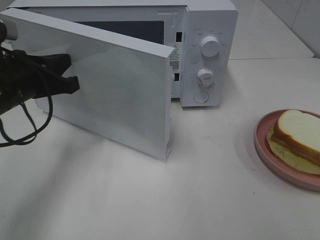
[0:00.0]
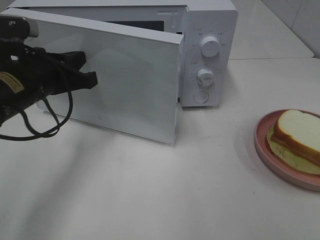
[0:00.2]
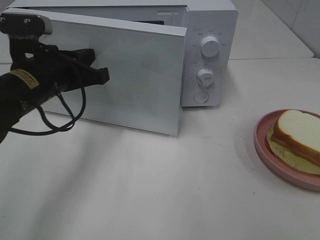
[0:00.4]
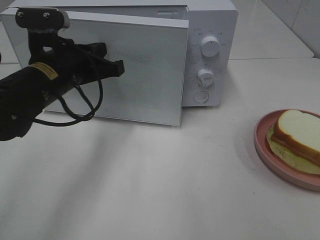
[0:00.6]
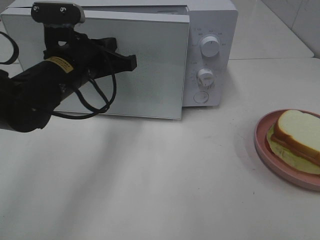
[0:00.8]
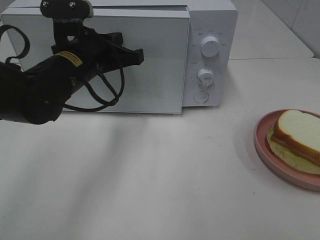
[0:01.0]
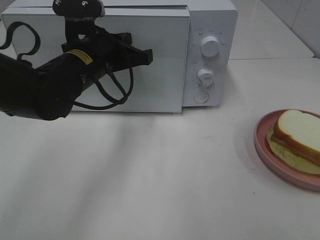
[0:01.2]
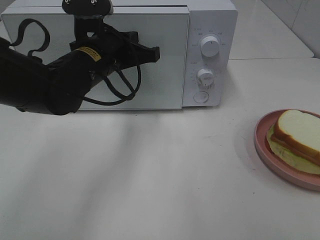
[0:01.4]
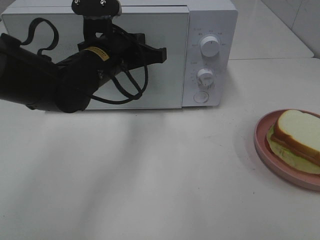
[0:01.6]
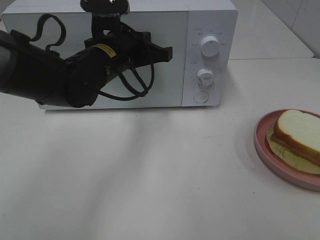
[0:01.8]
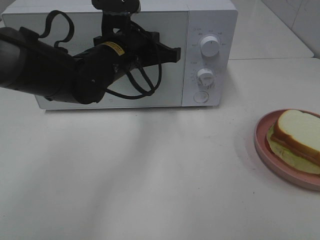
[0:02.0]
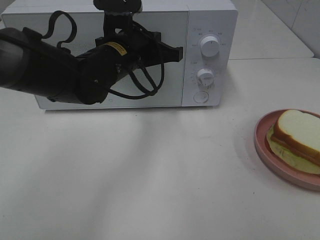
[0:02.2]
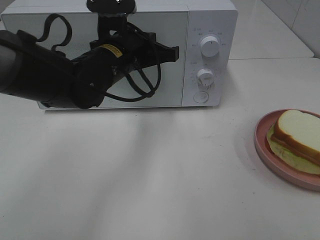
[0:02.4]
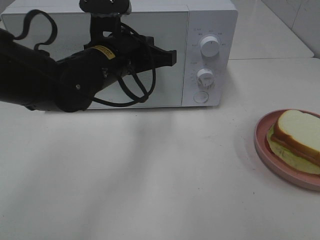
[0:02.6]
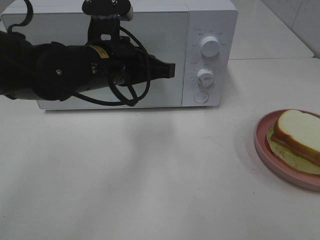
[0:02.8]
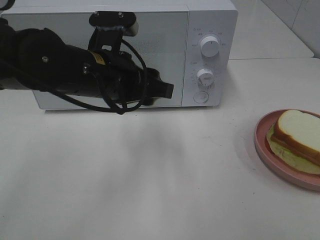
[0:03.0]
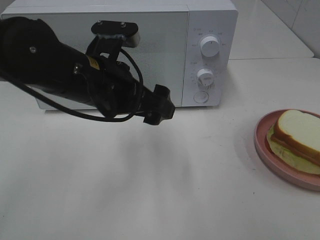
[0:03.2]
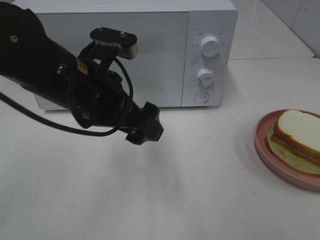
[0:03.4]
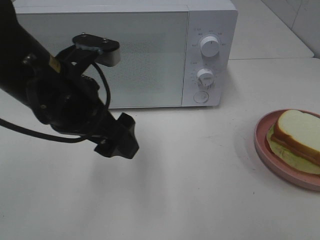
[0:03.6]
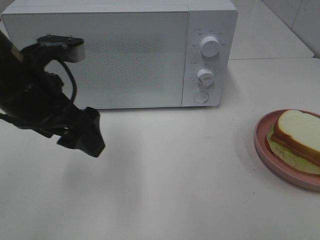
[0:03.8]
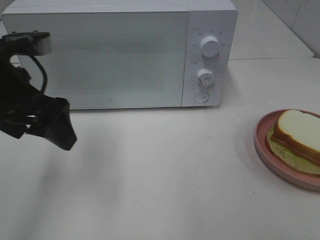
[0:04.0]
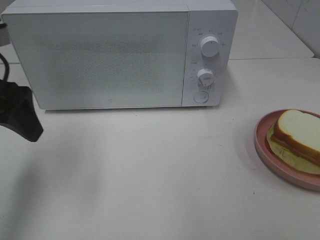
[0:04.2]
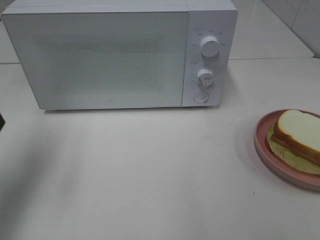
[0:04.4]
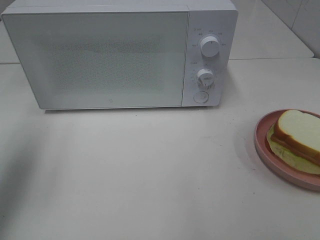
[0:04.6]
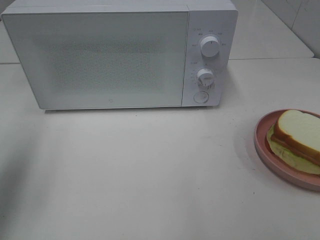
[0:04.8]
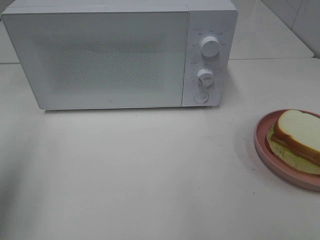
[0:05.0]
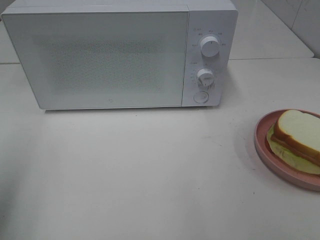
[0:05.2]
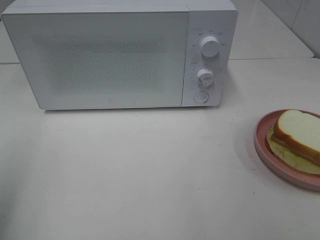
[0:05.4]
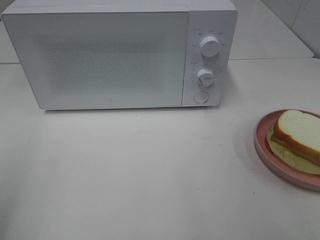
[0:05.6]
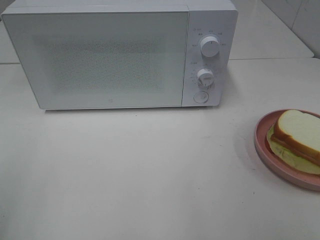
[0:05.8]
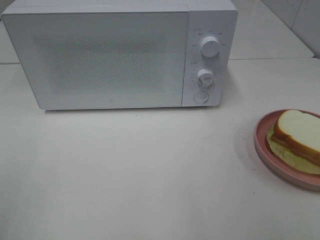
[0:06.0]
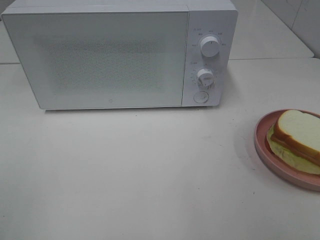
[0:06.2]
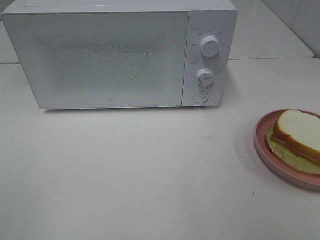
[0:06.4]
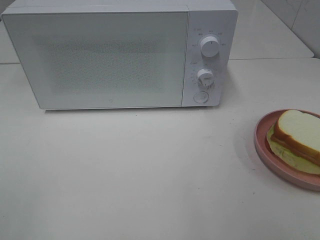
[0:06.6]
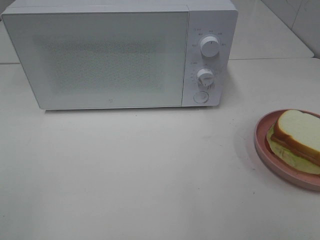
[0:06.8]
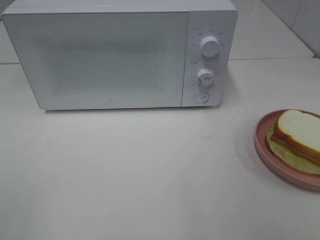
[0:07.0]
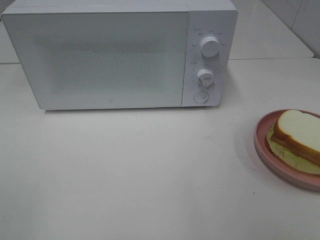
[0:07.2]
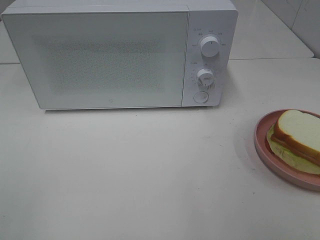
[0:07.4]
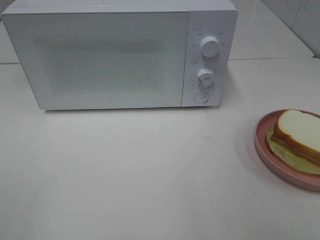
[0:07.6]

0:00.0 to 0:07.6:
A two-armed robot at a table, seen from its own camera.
Task of the whole recording: Heat Sandwich.
Step, 0:00.0 to 0:02.6: Left hand: close the microwave door.
0:00.0 to 0:01.6: The left gripper moves to the right and forward, roughly 15 cm.
0:01.6 to 0:03.0: The left gripper heads backward, covering about 5 cm, and opens its fingers.
0:03.0 to 0:04.6: The left gripper shifts roughly 25 cm to the left, and opens.
0:04.6 to 0:06.0: The left gripper heads backward, covering approximately 20 cm.

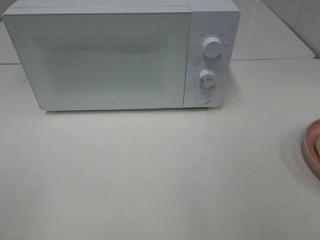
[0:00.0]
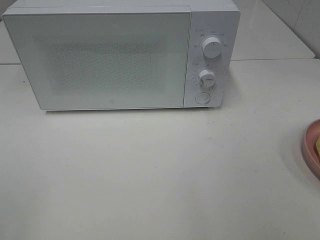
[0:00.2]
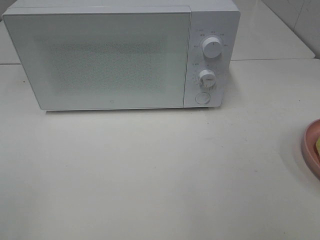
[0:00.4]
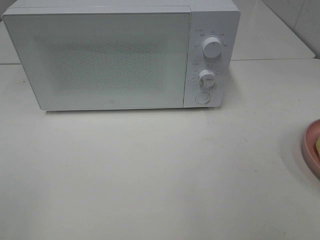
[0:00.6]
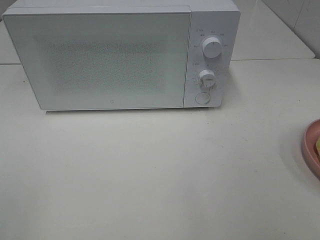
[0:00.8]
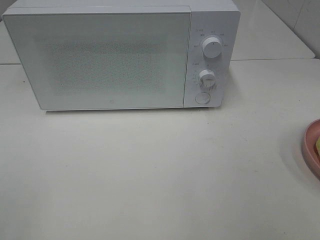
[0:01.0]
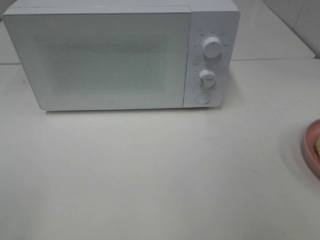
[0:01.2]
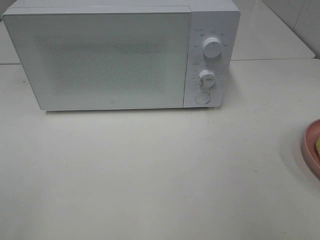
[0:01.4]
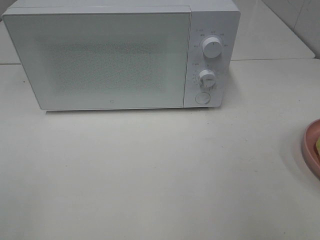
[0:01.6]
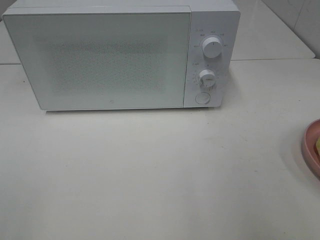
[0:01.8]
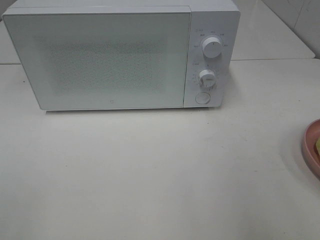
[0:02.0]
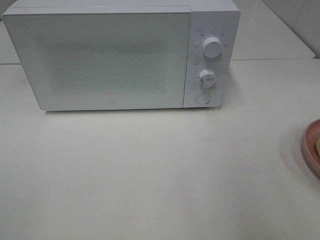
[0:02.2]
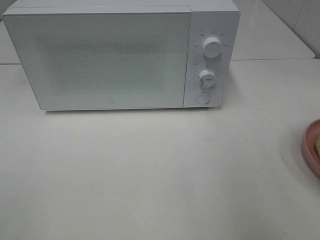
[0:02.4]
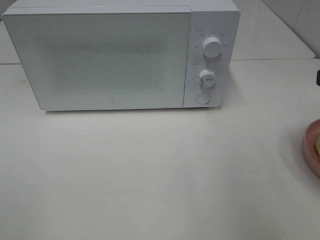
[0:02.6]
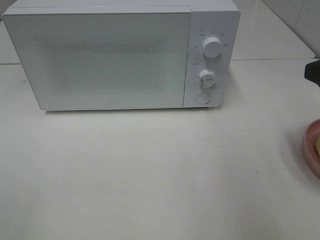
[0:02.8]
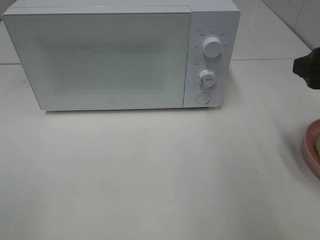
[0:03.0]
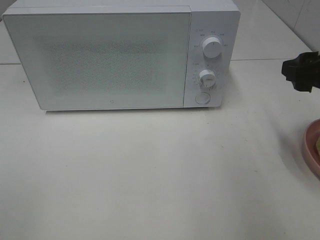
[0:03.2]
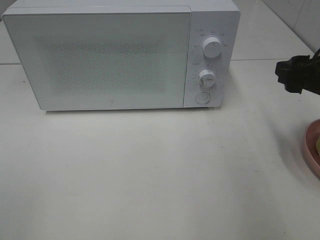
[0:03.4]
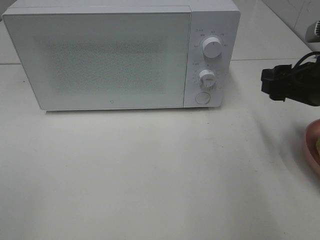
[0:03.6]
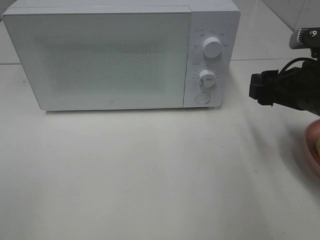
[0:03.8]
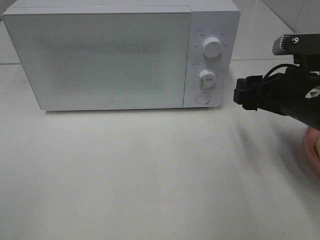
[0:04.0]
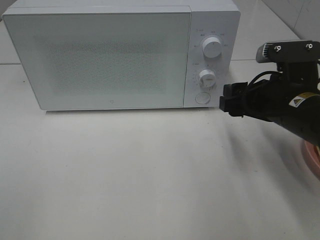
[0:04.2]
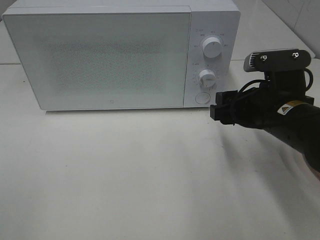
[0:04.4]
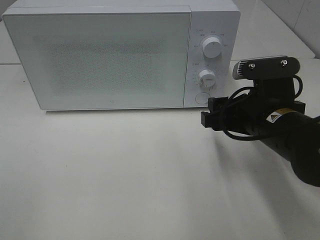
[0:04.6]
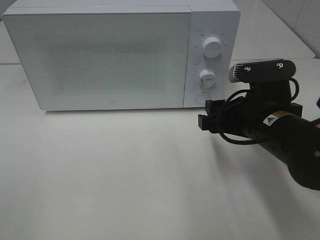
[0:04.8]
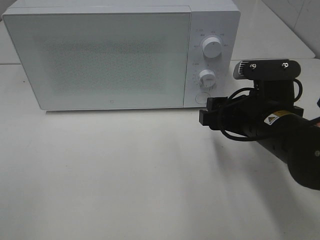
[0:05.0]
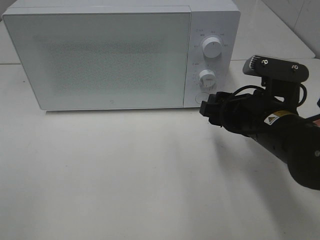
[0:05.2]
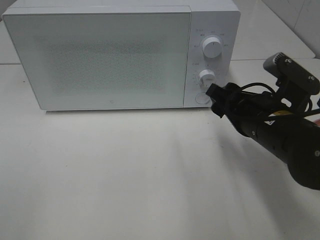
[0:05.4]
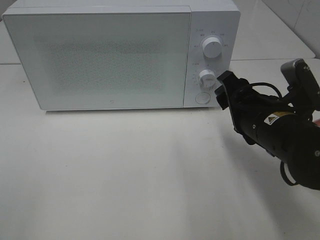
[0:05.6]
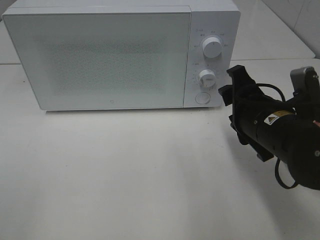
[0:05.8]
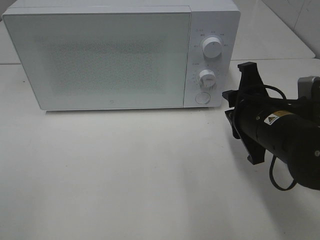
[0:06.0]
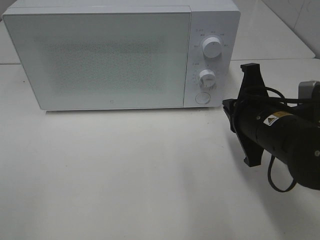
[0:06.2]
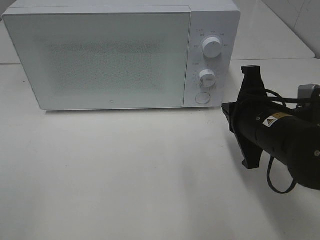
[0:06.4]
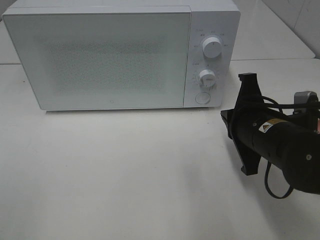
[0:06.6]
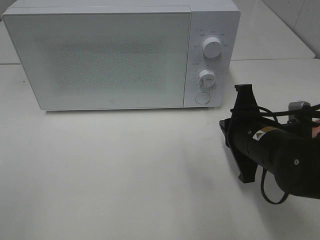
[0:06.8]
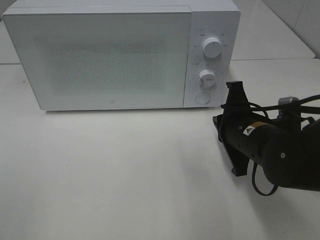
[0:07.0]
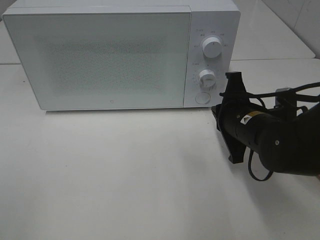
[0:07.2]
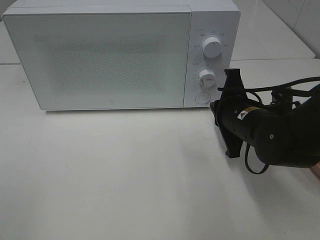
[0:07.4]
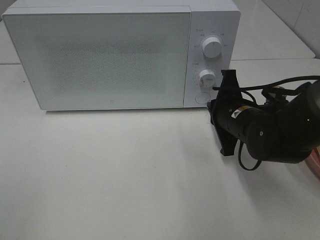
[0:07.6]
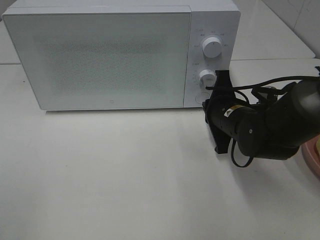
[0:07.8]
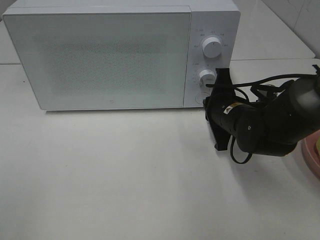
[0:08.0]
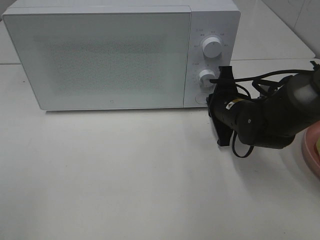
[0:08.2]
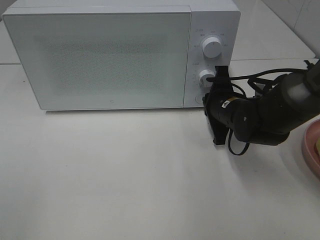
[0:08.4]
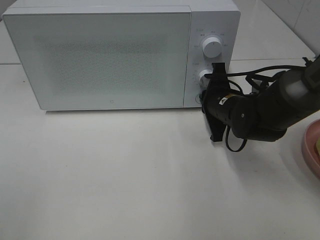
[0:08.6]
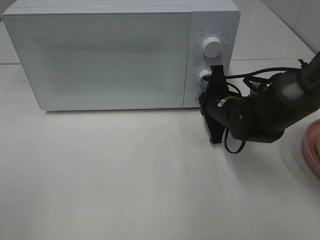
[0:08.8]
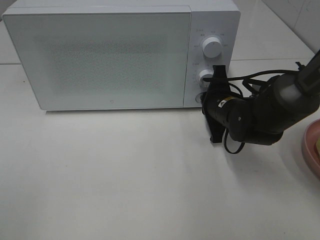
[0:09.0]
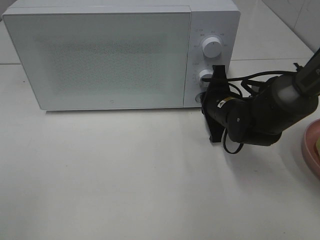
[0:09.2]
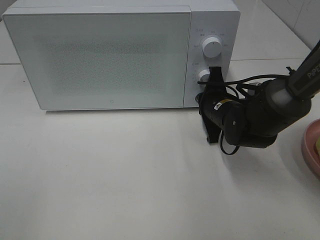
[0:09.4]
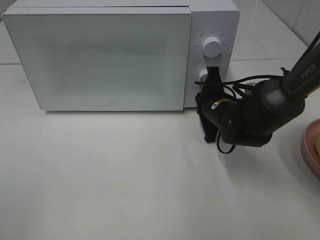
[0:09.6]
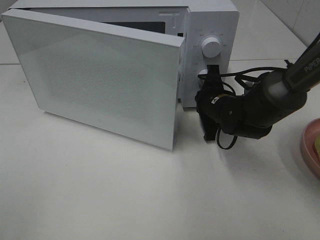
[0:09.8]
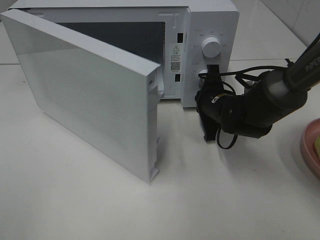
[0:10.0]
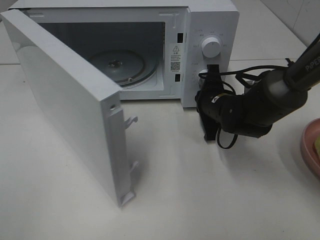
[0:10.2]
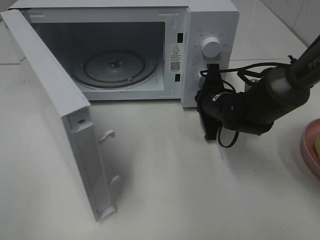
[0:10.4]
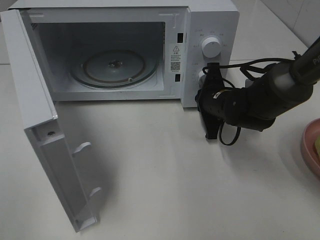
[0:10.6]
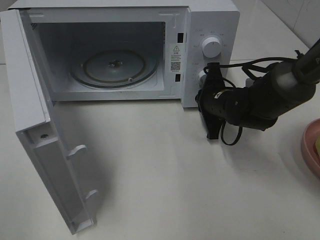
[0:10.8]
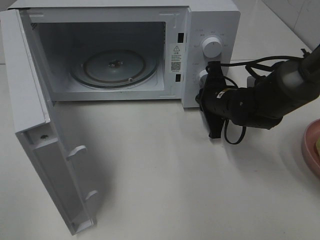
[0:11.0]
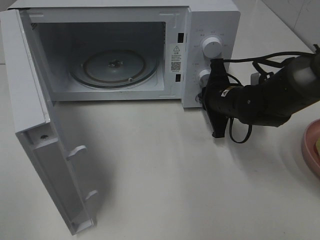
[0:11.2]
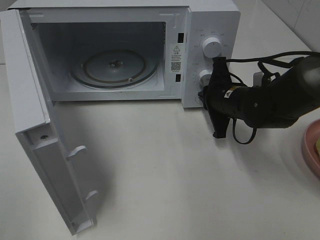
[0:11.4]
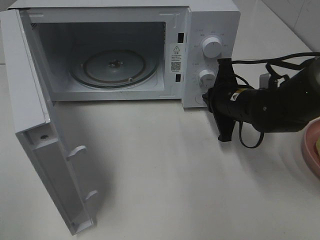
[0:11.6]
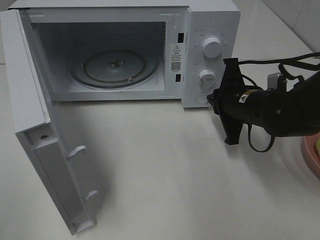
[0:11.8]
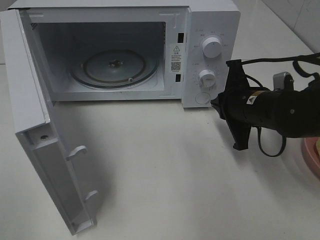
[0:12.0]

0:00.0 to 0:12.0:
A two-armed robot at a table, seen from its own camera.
Task of the whole recording: Heat Sandwich.
Step, 0:00.0 to 0:11.6: Right hand: press the switch.
0:01.6 to 0:03.0: The right gripper goes some 15 cm forward.
0:03.0 to 0:04.4: The right gripper goes about 15 cm to the left and downward.
0:04.4 to 0:06.0: The right gripper closes.
0:06.0 to 0:07.6: The right gripper is displaced forward by roughly 5 cm, and closes its fingers.
0:07.6 to 0:09.0: The right gripper changes place by some 5 cm.
0:10.4 to 0:12.0: The right gripper heads backward and upward, covering roughly 10 cm.

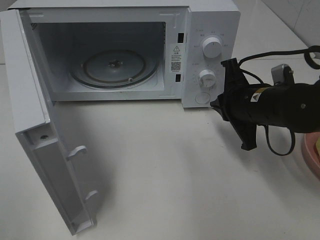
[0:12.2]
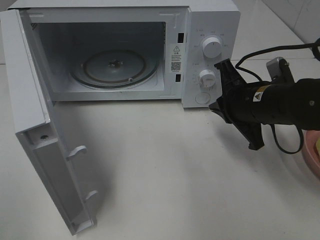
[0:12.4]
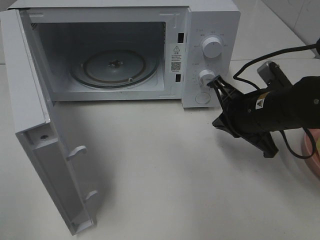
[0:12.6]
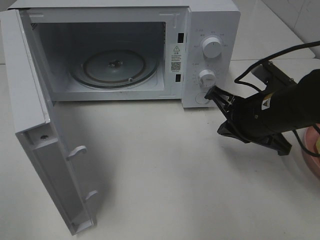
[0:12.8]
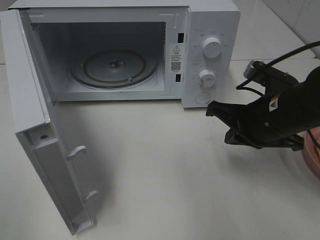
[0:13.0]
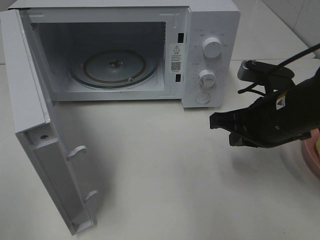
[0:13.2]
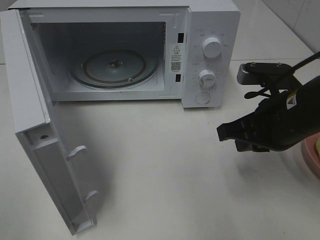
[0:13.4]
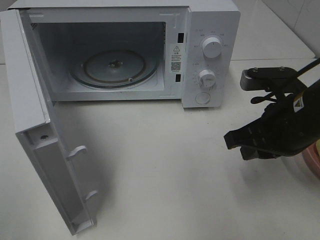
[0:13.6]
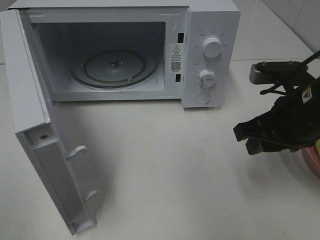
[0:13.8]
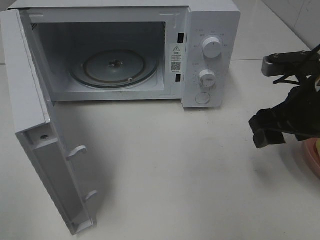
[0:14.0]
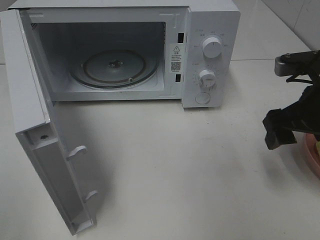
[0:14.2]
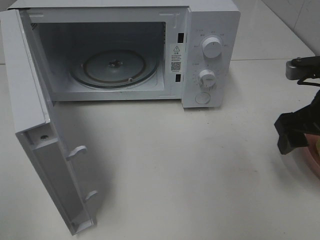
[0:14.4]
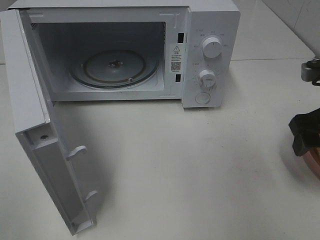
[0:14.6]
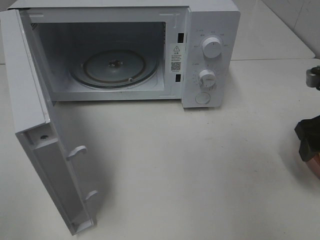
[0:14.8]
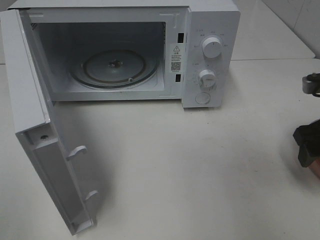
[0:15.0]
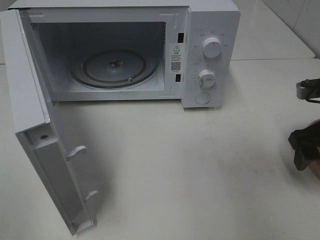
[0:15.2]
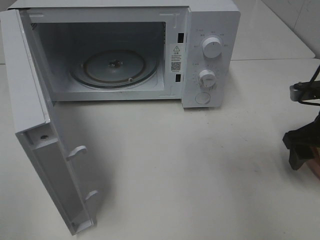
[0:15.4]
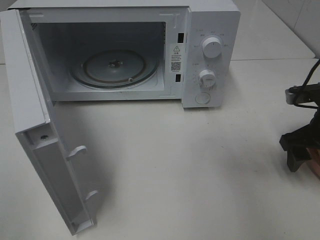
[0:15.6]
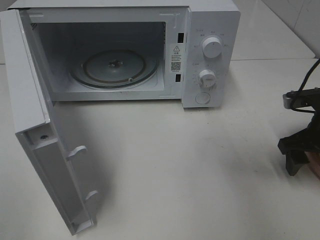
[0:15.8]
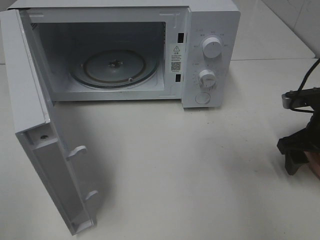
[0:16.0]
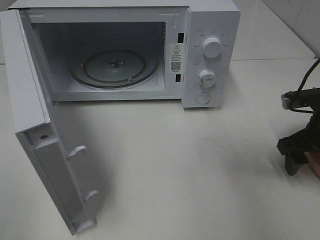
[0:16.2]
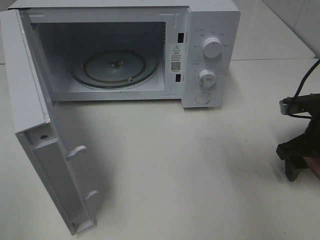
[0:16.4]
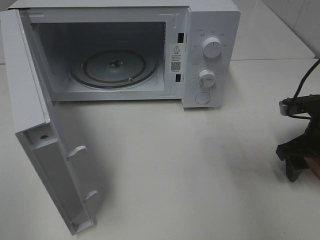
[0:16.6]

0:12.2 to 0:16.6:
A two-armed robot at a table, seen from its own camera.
Task of the whole recording: Heat Sandwich.
0:12.2 to 0:13.6: The right gripper heads backward, covering some 5 cm.
0:13.6 to 0:15.2: The right gripper moves to the right, roughly 10 cm, and opens its fingers.
0:15.2 to 0:16.6: The grippers move only a little.
